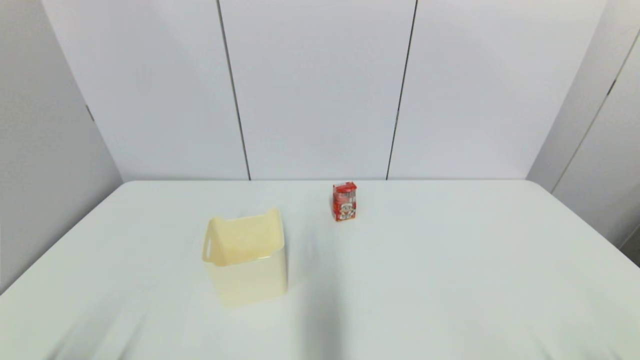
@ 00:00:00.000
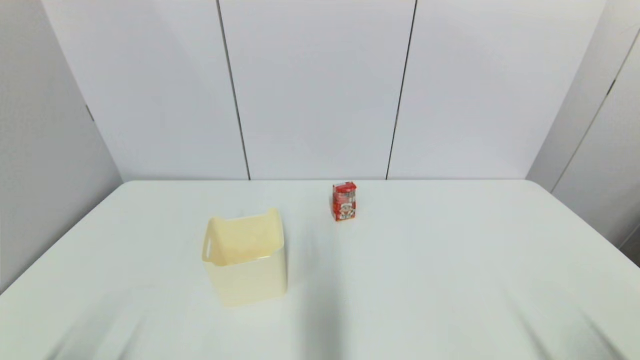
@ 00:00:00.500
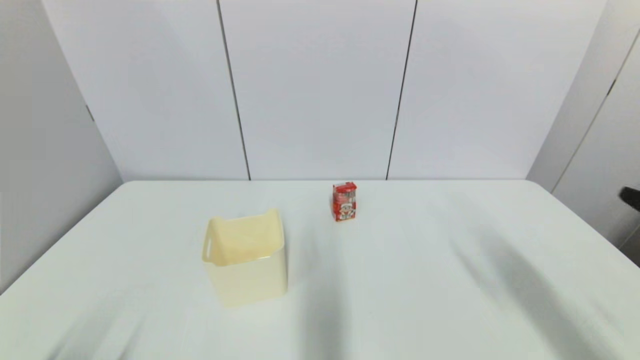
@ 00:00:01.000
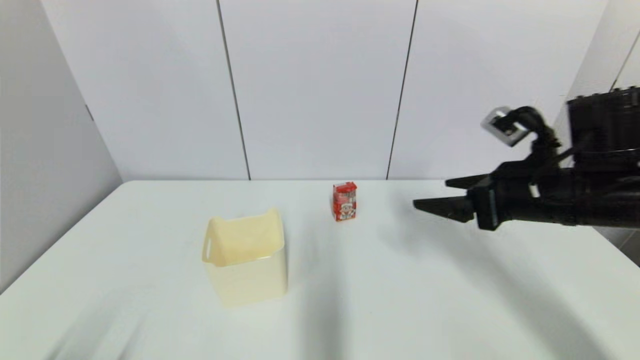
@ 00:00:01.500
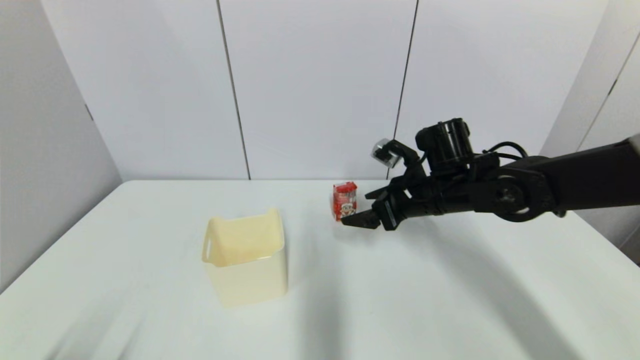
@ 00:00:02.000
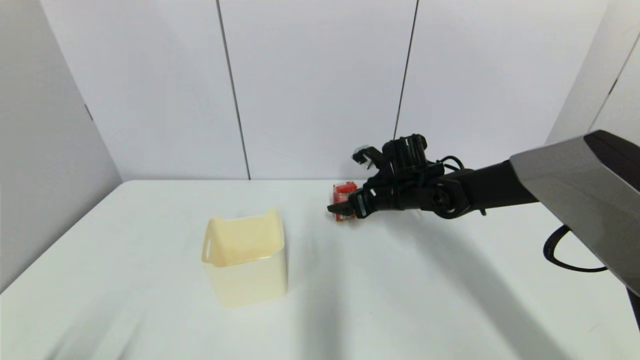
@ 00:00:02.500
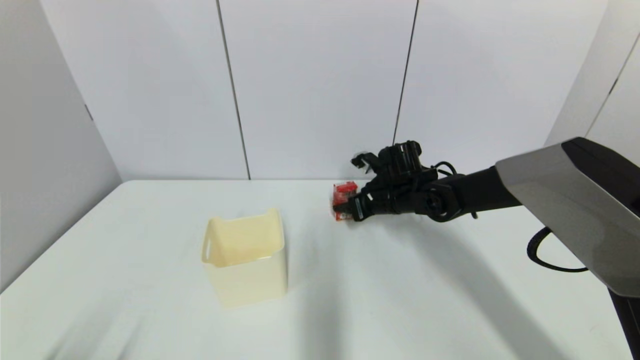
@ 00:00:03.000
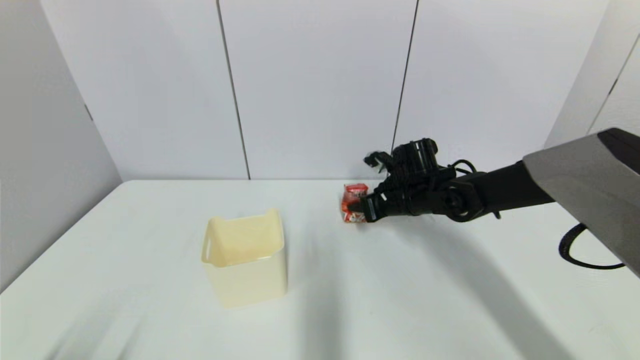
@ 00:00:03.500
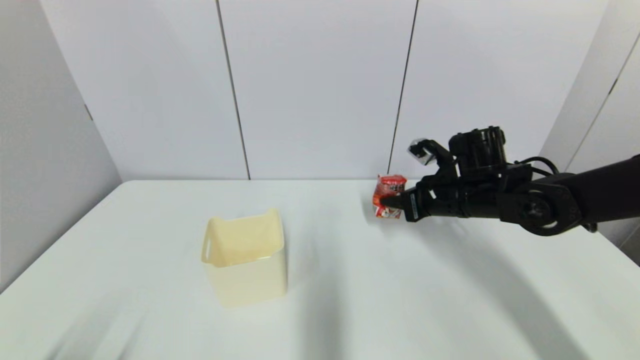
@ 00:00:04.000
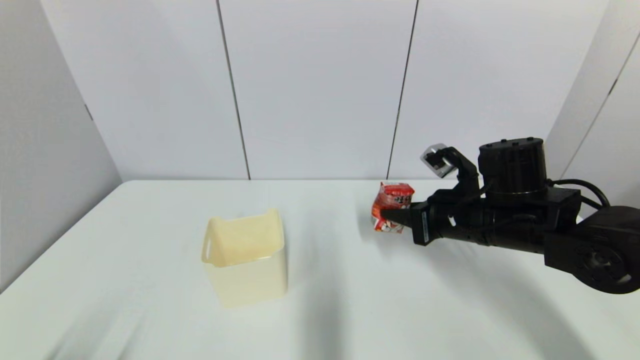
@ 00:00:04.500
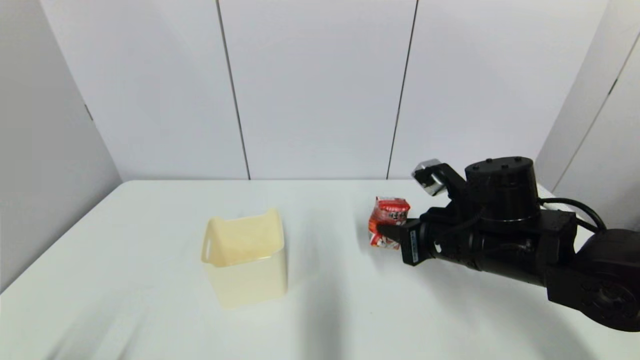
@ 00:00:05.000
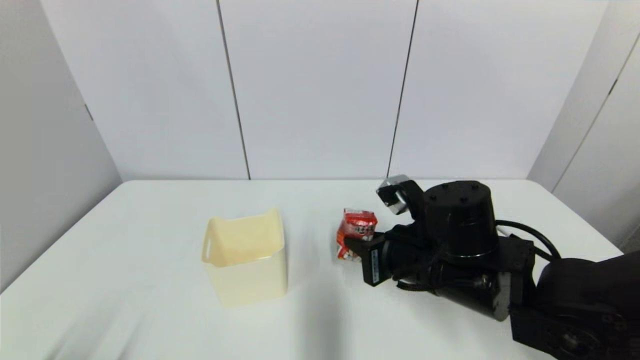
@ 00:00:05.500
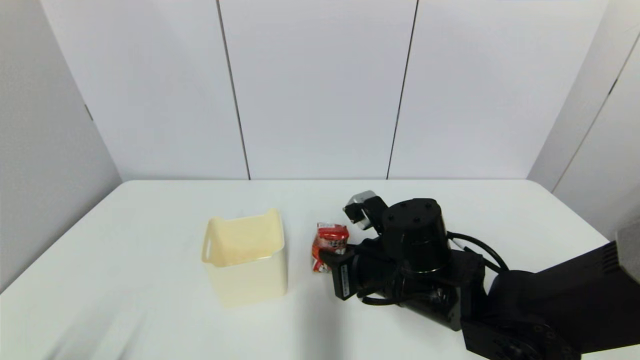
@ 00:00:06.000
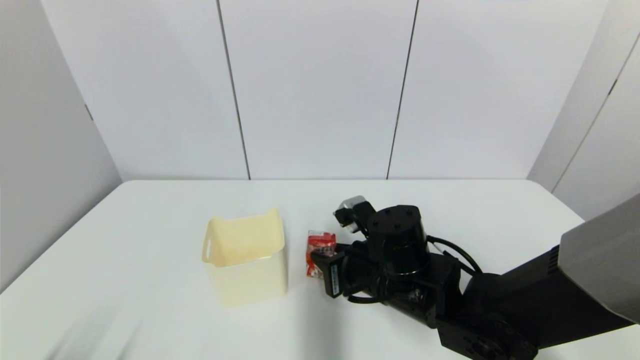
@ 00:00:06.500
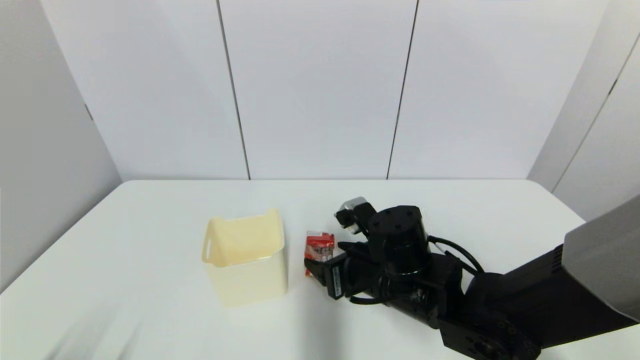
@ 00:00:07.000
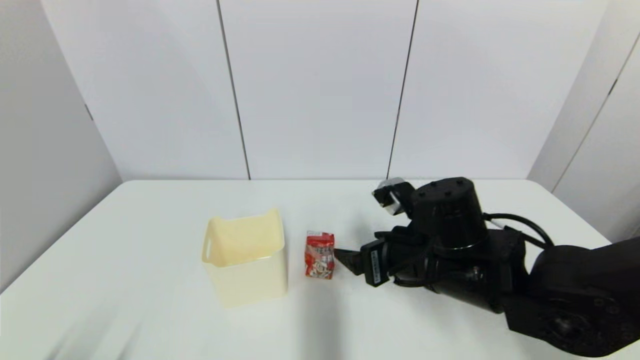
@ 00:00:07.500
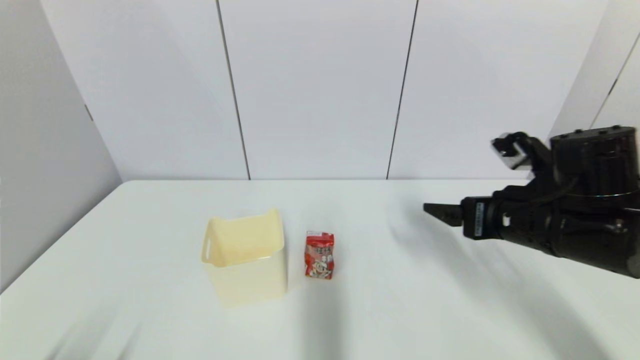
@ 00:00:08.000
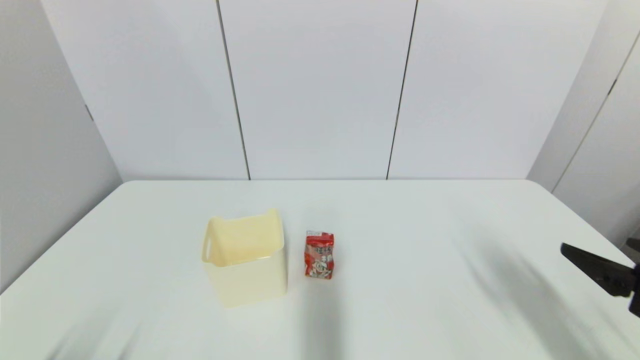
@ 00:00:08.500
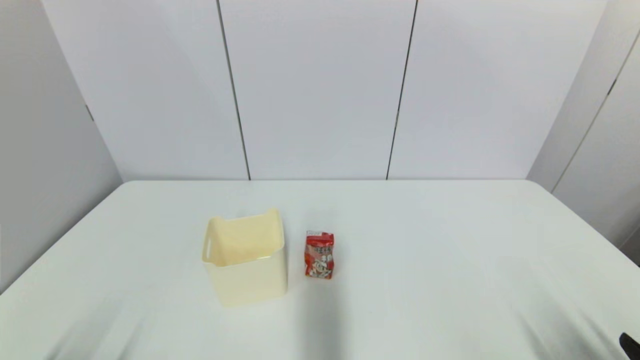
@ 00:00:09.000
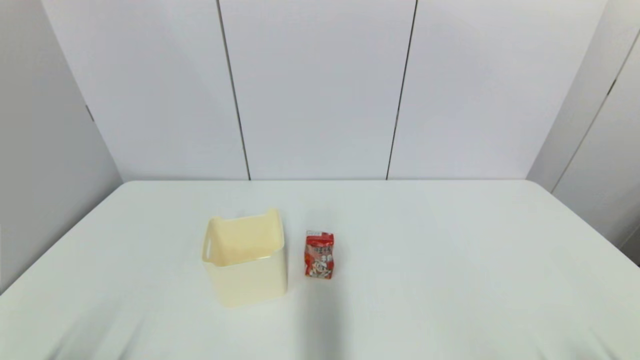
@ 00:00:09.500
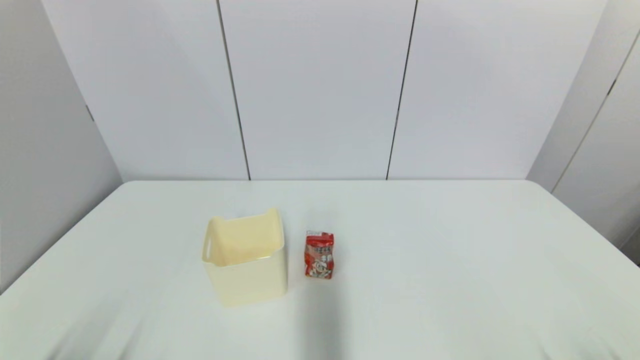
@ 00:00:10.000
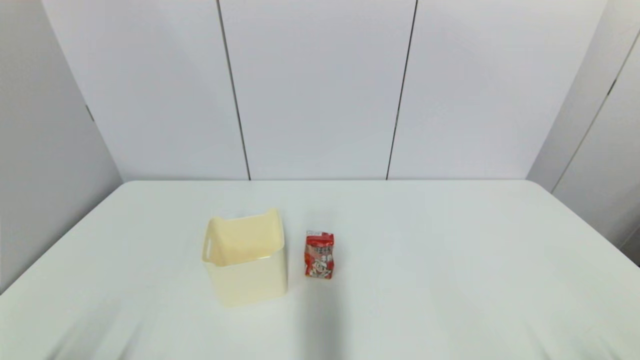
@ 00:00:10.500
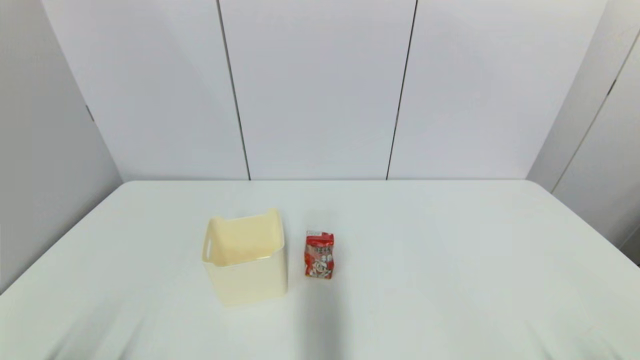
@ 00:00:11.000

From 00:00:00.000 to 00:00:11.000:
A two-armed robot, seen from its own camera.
Step, from 00:00:01.000 to 00:00:03.000: Grasp the wangzai milk with right gripper.
Step, from 00:00:03.500 to 00:00:06.500: Place the wangzai milk on the table with right gripper.
From 00:00:00.000 to 00:00:02.000: The right gripper shifts about 40 cm forward and to the left.
From 00:00:02.000 to 00:00:03.500: The right gripper travels forward by roughly 5 cm, and closes its fingers.
From 00:00:03.500 to 00:00:05.500: The right gripper moves backward, approximately 15 cm.
From 00:00:05.500 to 00:00:07.500: The right gripper opens its fingers.
From 00:00:07.500 to 00:00:09.000: The right gripper is displaced backward and to the right by about 30 cm.
From 00:00:09.000 to 00:00:11.000: The right gripper shifts by roughly 5 cm.

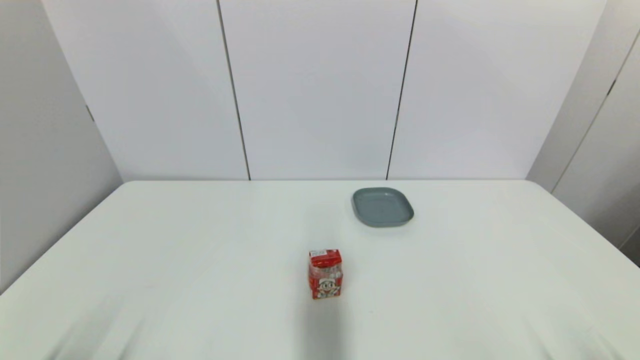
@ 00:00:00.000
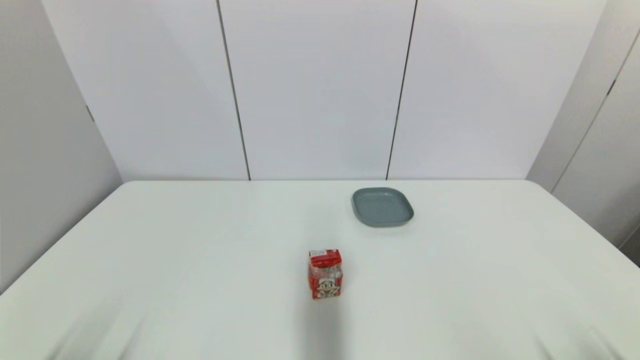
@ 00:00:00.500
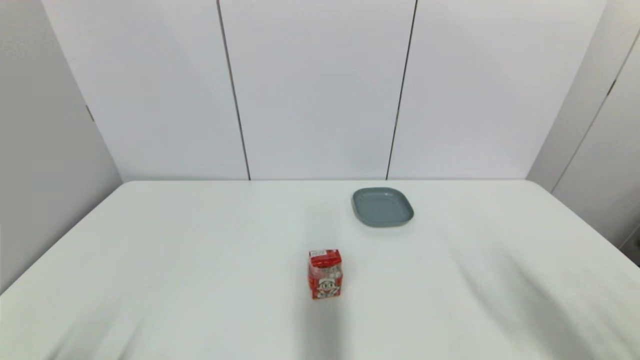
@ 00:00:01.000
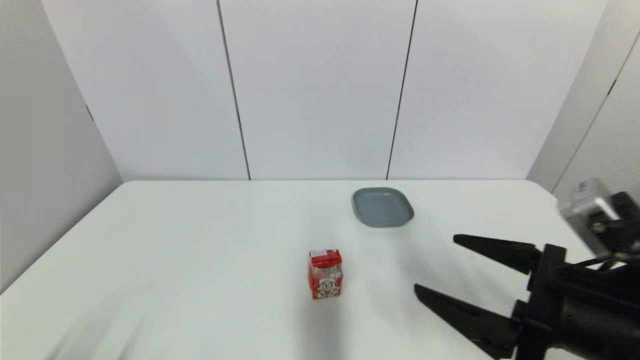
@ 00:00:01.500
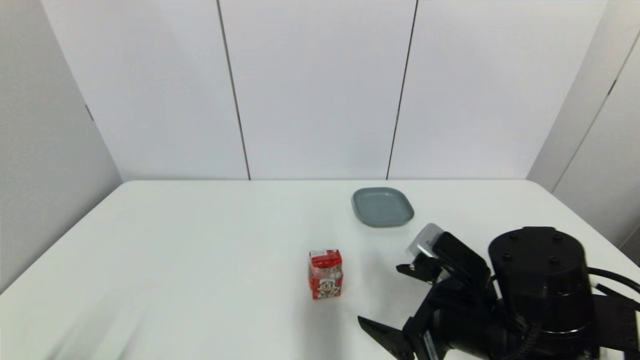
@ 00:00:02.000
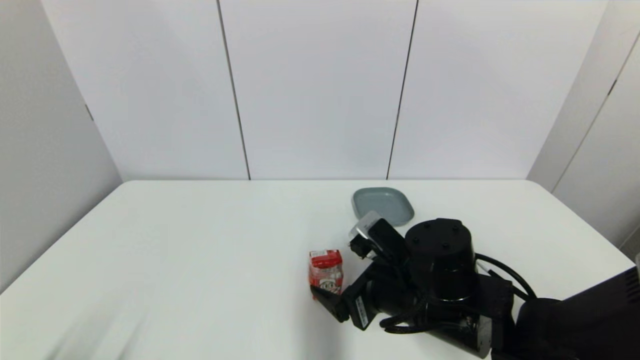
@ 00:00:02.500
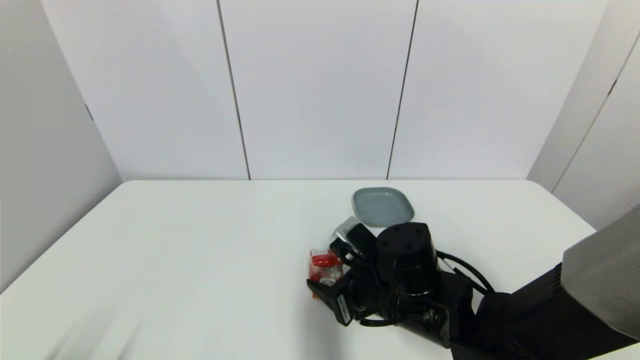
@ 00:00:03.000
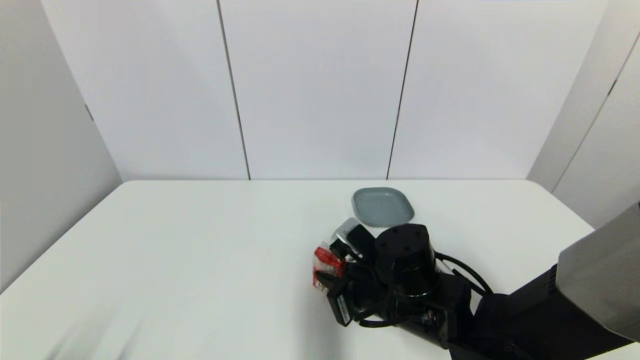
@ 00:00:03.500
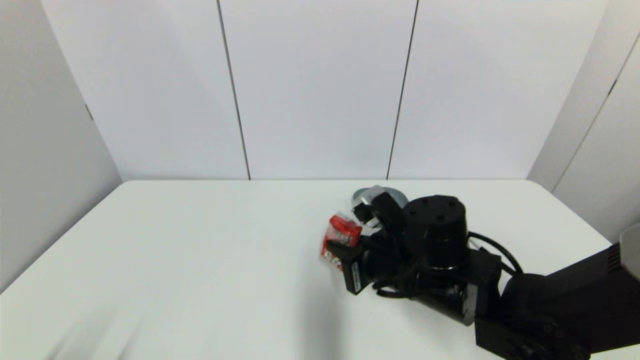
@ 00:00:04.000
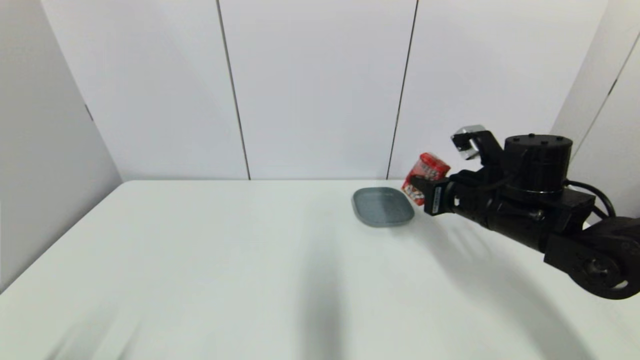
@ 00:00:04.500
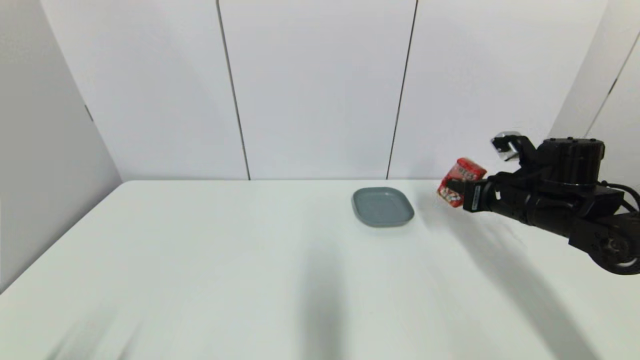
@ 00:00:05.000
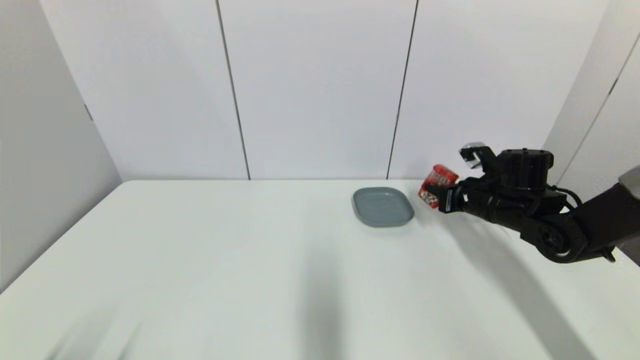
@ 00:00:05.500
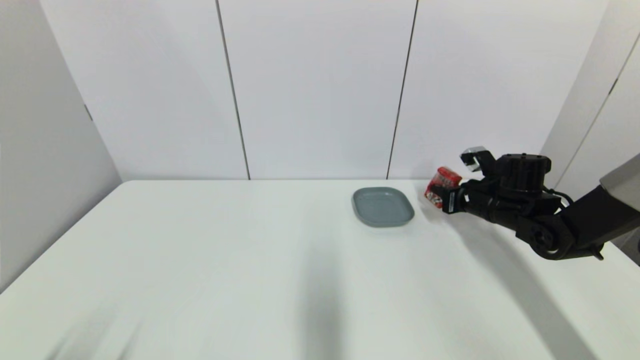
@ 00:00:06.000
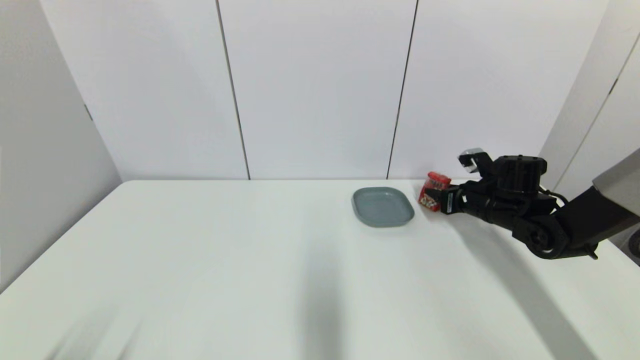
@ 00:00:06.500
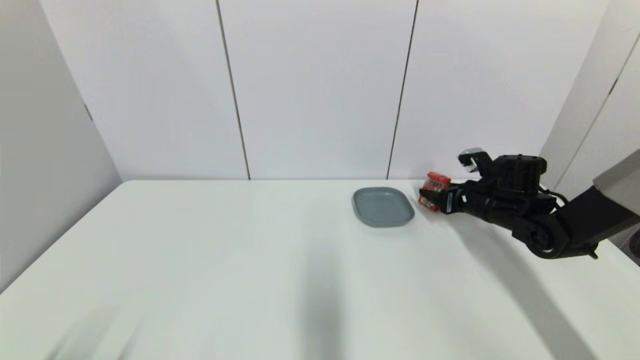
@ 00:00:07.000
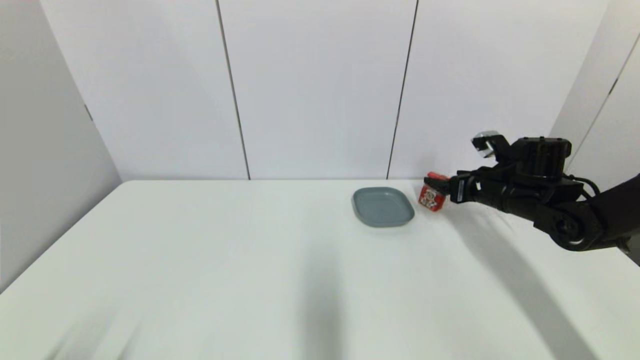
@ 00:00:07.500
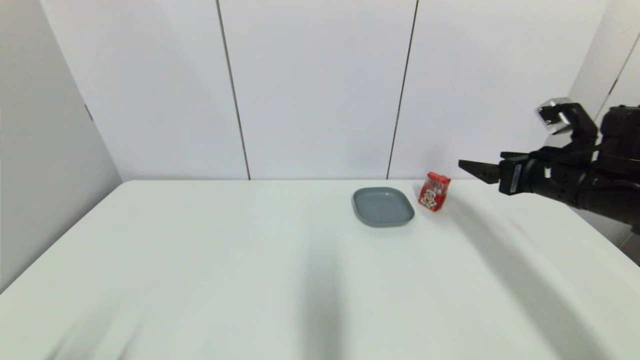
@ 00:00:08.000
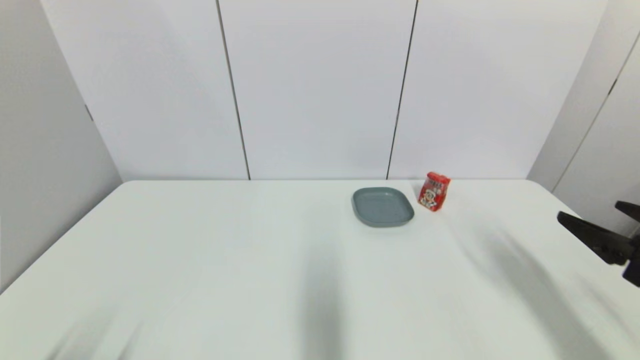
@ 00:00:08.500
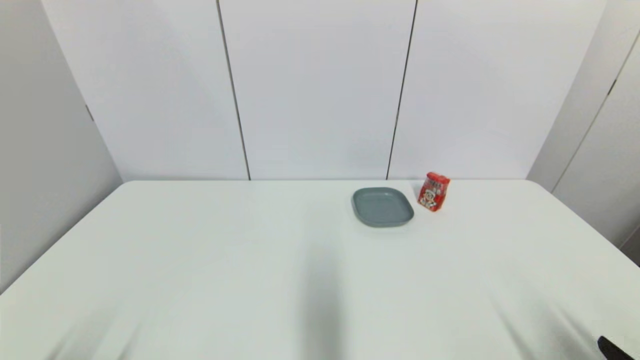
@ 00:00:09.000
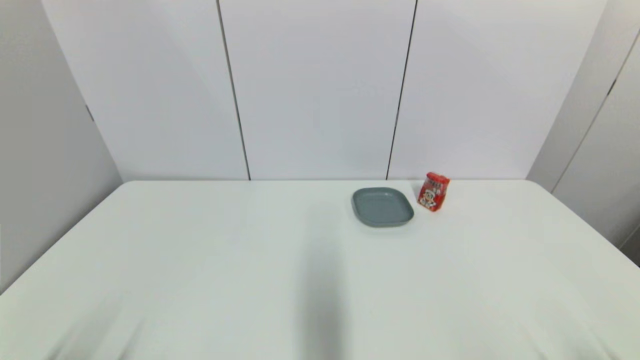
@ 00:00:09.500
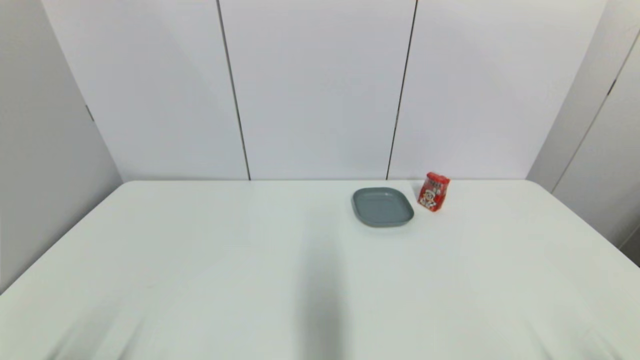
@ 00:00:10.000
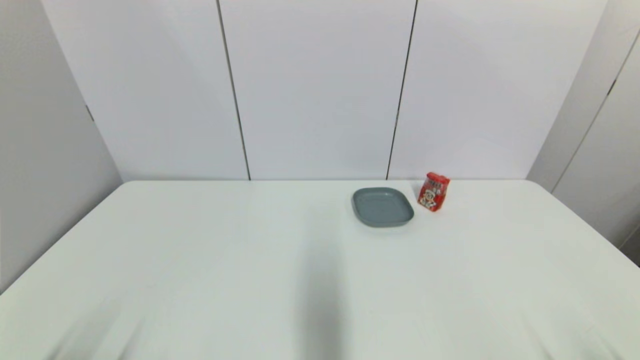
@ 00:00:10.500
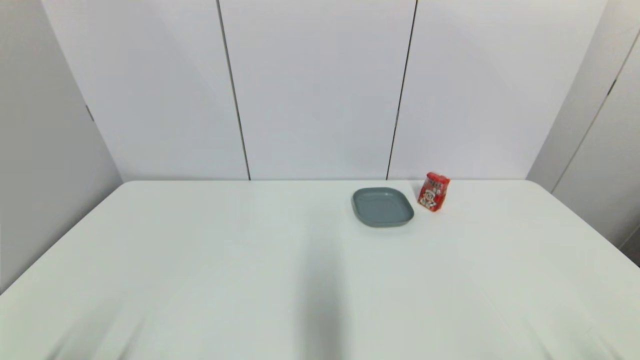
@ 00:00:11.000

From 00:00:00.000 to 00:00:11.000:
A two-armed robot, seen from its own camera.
Step, from 00:00:01.500 to 00:00:03.000: Grasp the wangzai milk with right gripper.
Step, from 00:00:03.500 to 00:00:06.500: Place the wangzai milk on the table with right gripper.
From 00:00:00.000 to 00:00:02.000: The right gripper is displaced forward and to the left by roughly 25 cm.
From 00:00:02.000 to 00:00:03.500: The right gripper travels to the left, forward and downward by about 10 cm, and closes.
From 00:00:03.500 to 00:00:05.500: The right gripper is displaced to the right and forward by about 25 cm.
From 00:00:05.500 to 00:00:07.500: The right gripper opens.
From 00:00:07.500 to 00:00:09.000: The right gripper travels backward by some 35 cm.
From 00:00:09.000 to 00:00:11.000: The right gripper moves about 5 cm.
